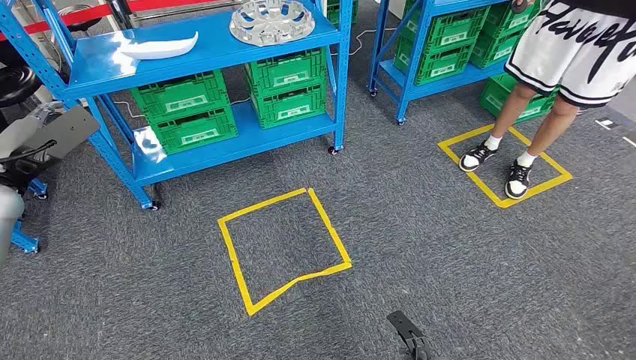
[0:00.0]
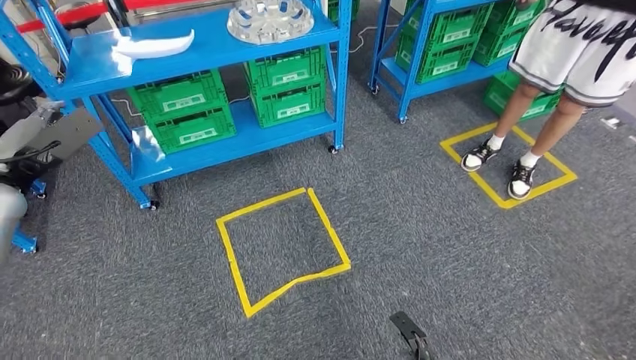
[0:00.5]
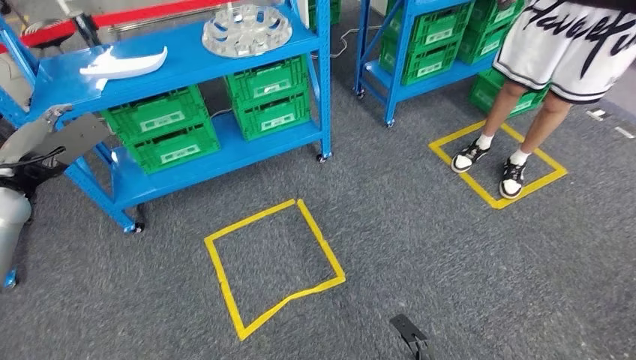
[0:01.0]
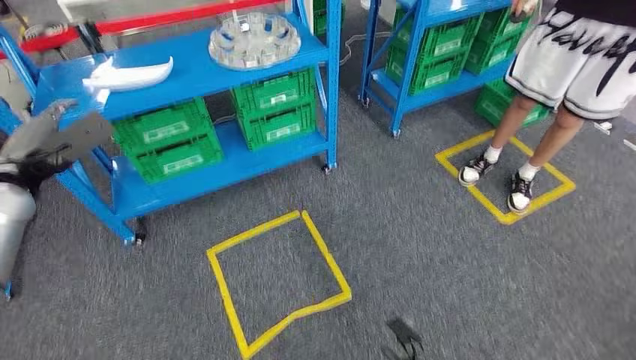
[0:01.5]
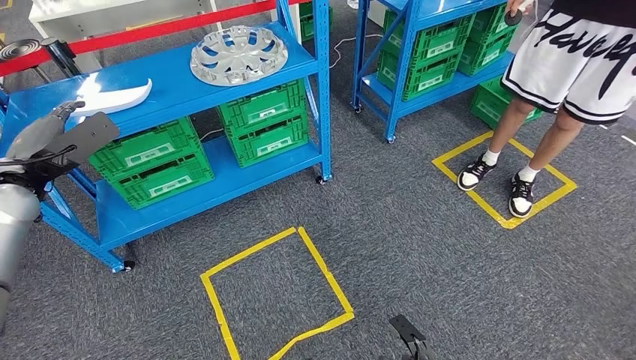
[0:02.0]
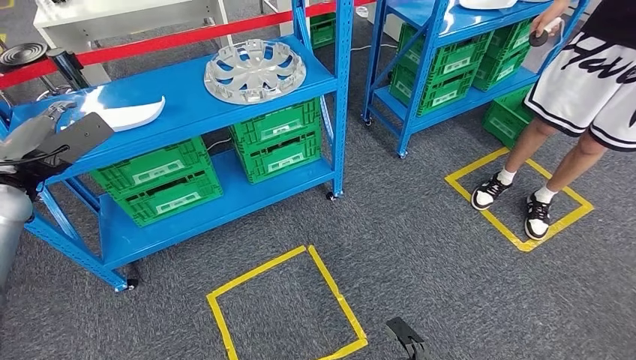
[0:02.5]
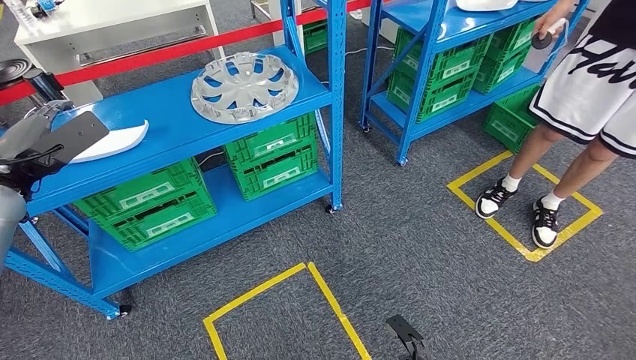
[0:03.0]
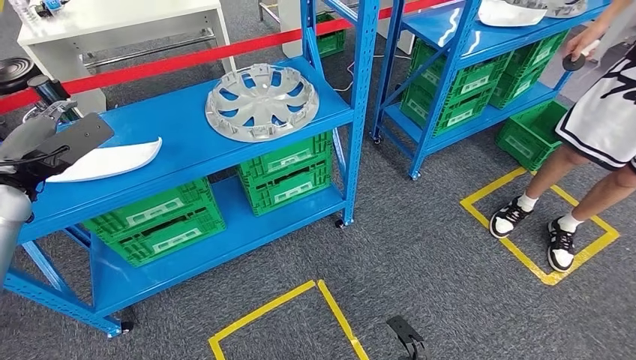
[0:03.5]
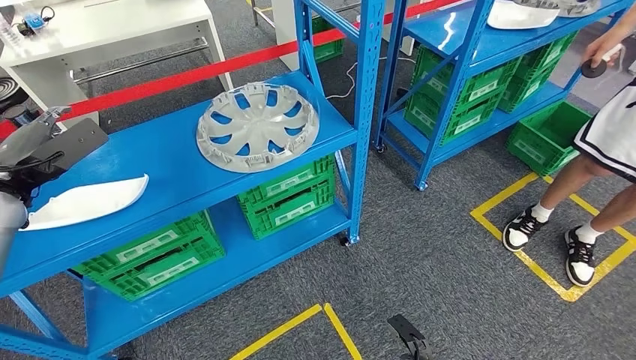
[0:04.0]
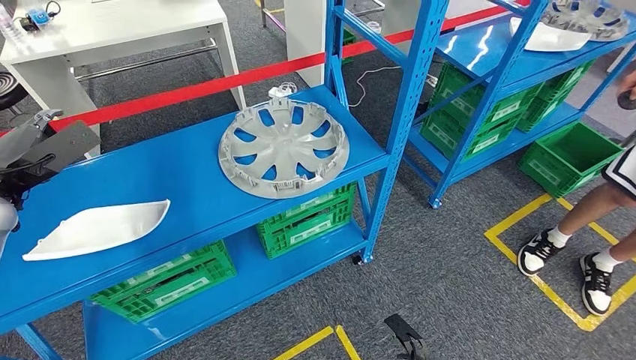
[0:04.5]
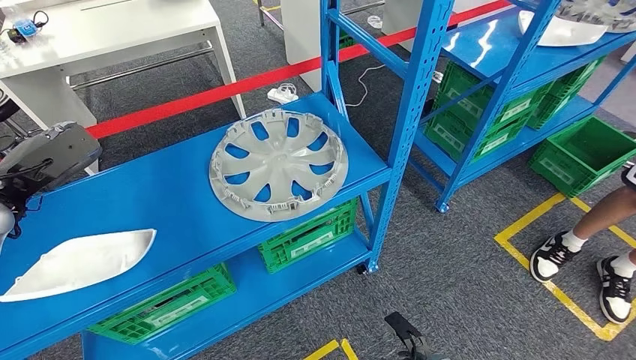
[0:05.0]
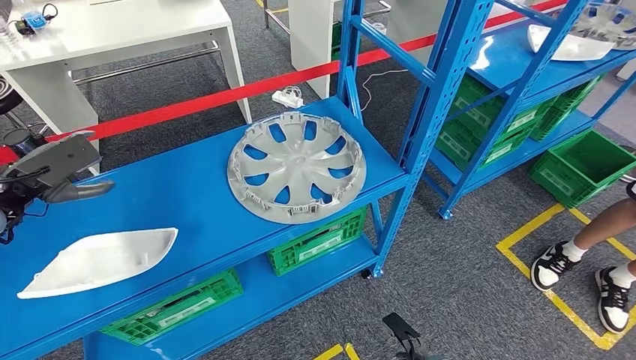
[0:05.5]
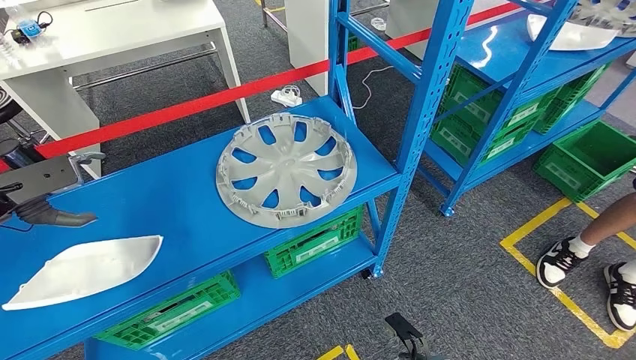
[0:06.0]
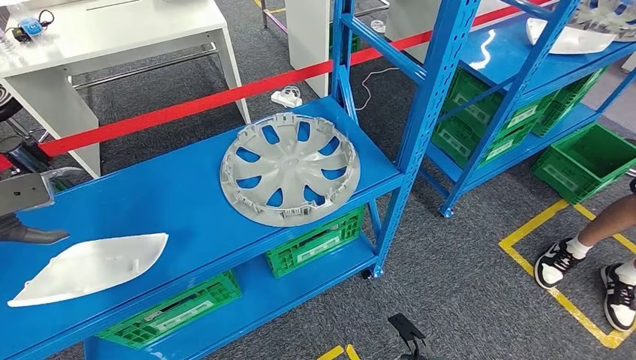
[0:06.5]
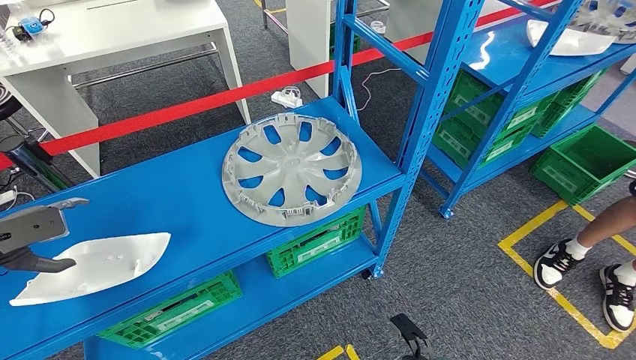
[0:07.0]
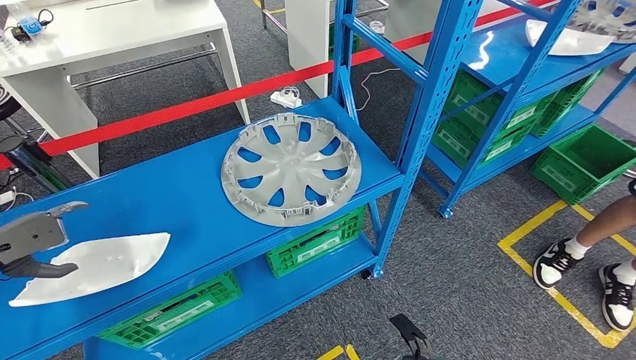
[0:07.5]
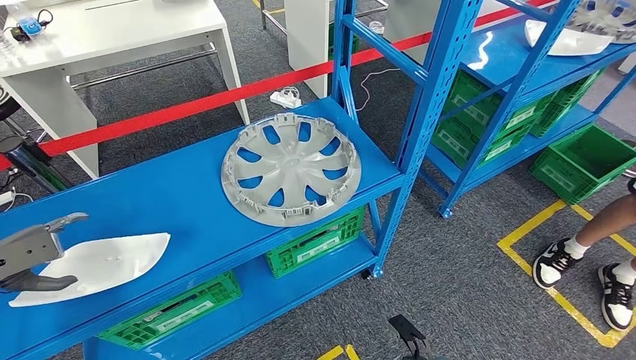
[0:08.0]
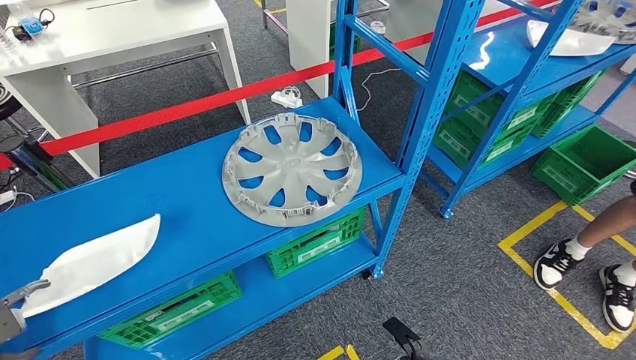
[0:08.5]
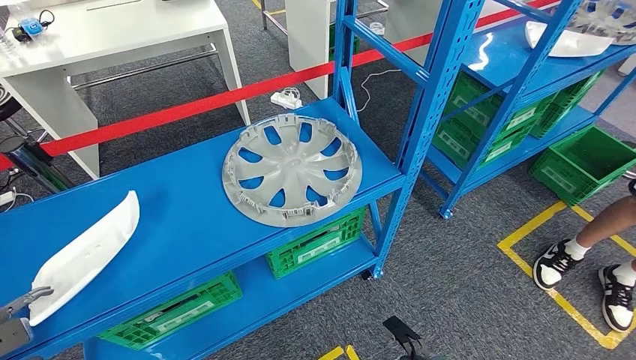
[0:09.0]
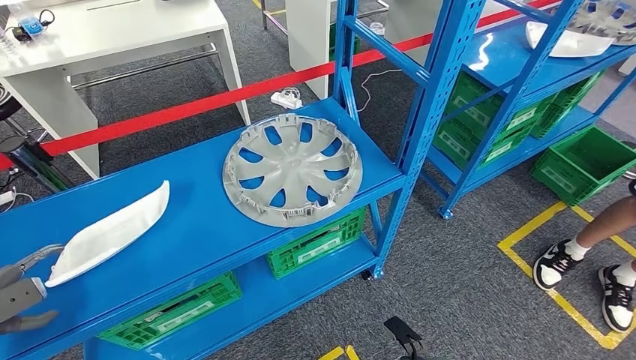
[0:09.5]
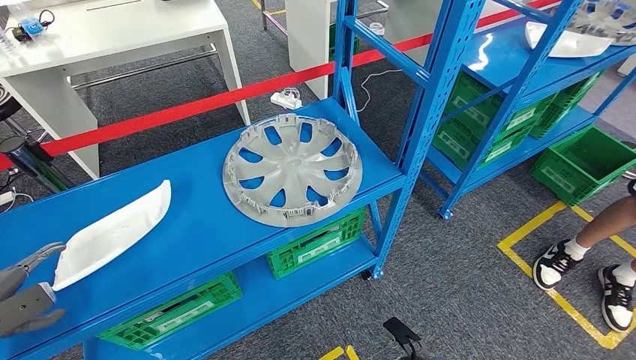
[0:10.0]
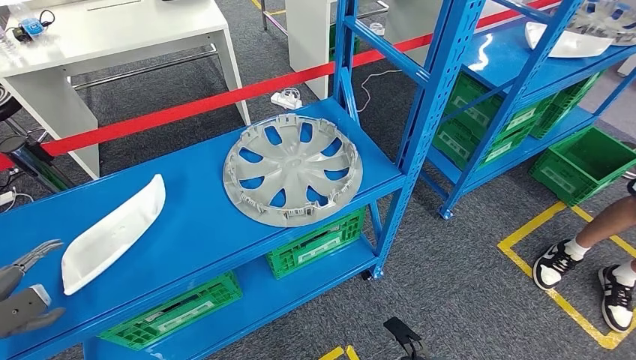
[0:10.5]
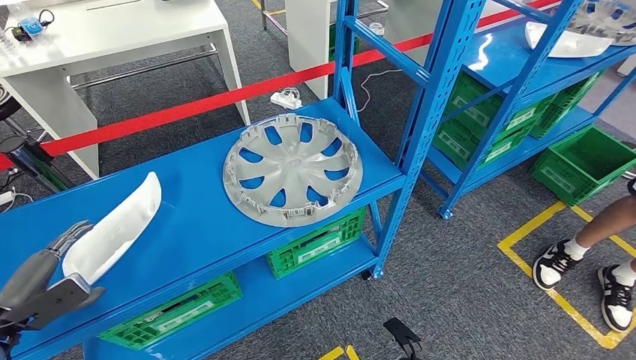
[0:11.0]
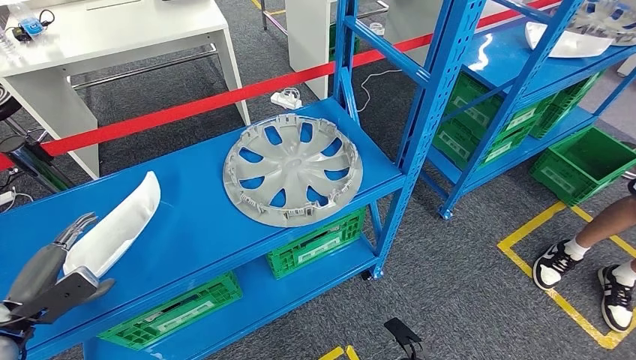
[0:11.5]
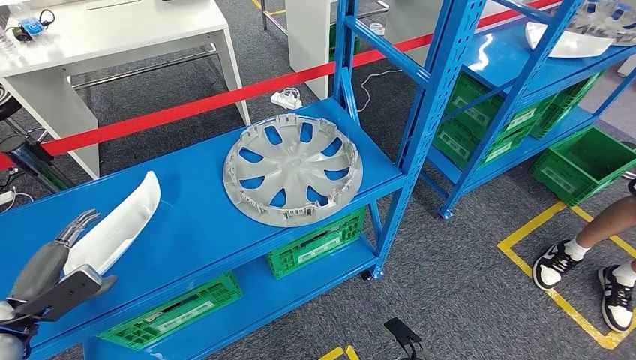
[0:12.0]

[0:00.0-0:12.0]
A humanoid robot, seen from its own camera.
0:06.0 to 0:08.0: The left hand shifts roughly 10 cm to the left and downward.
0:08.0 to 0:10.0: The left hand is displaced backward and downward by approximately 10 cm.
0:10.0 to 0:12.0: The left hand shifts roughly 10 cm to the right.

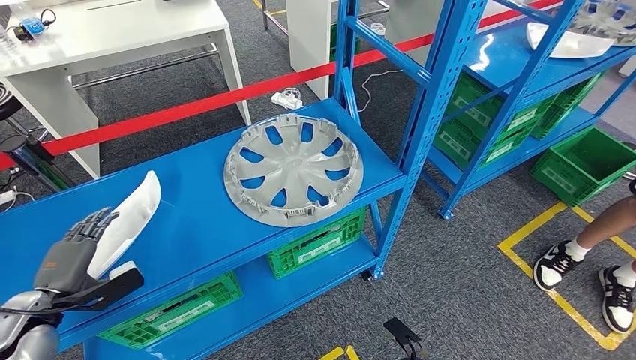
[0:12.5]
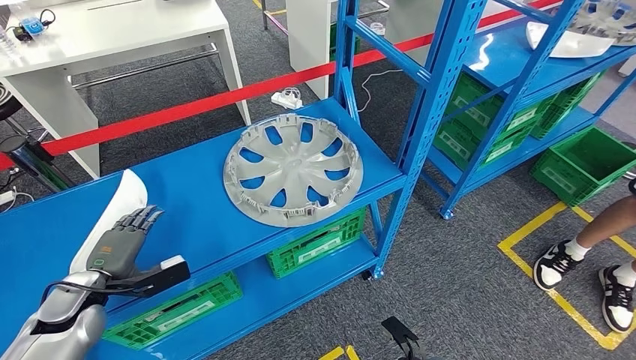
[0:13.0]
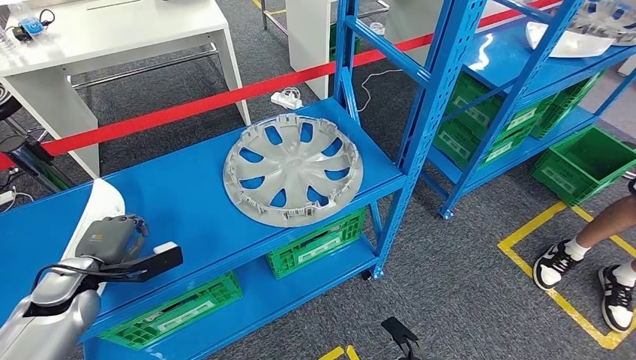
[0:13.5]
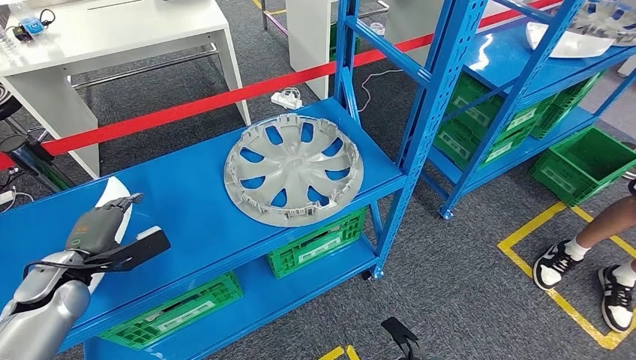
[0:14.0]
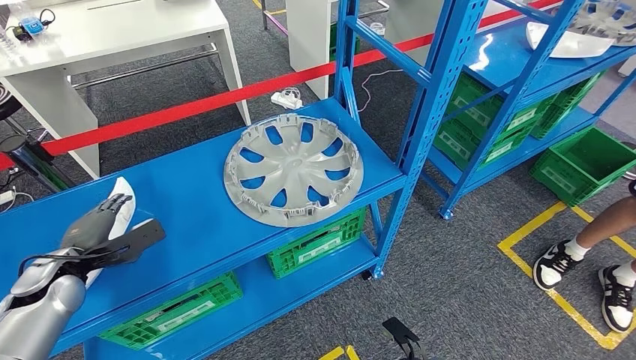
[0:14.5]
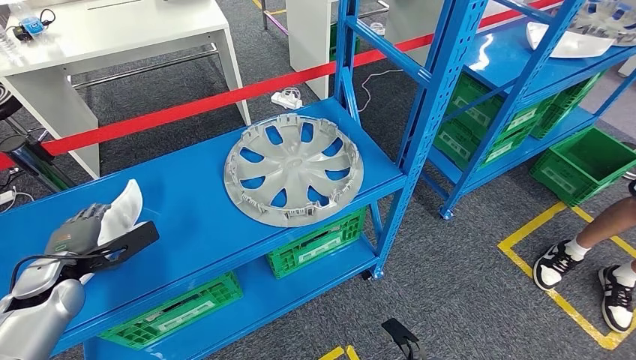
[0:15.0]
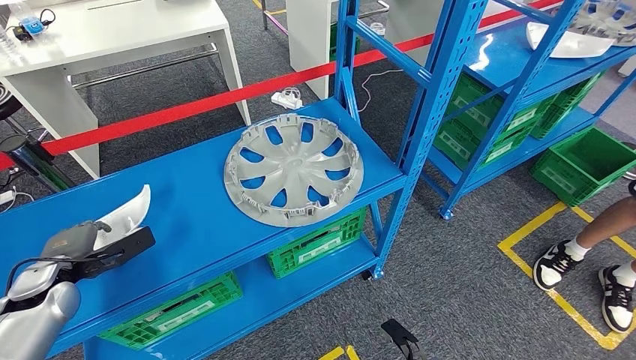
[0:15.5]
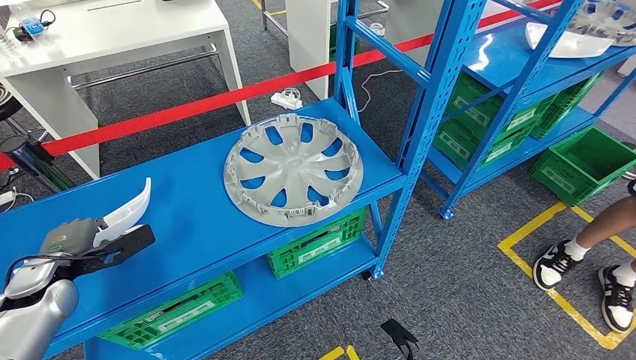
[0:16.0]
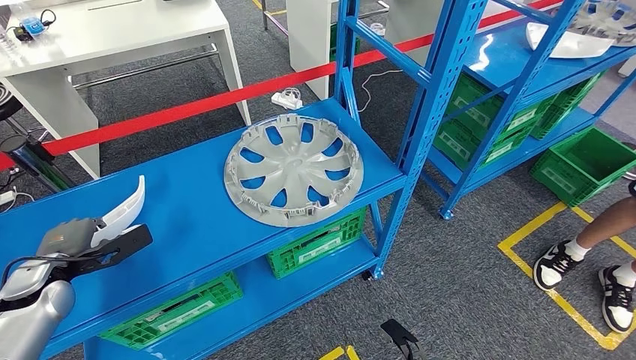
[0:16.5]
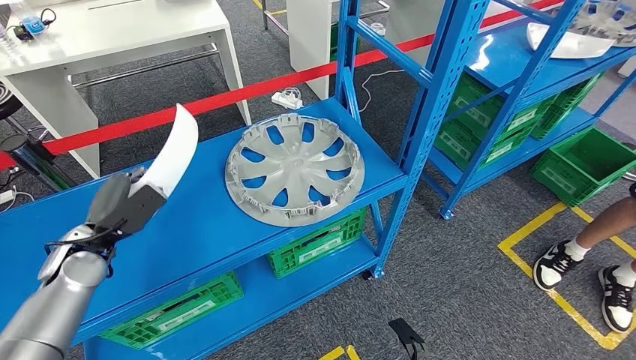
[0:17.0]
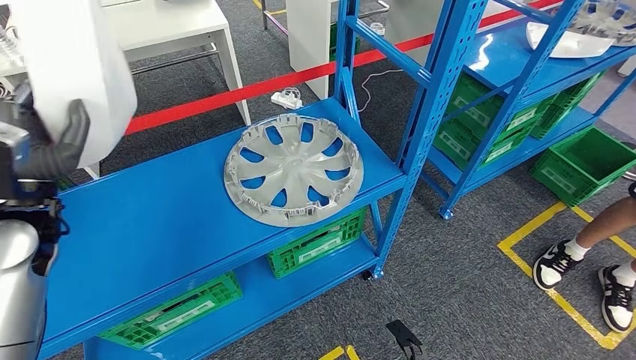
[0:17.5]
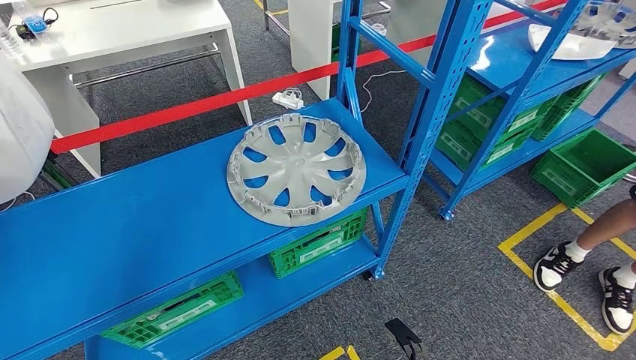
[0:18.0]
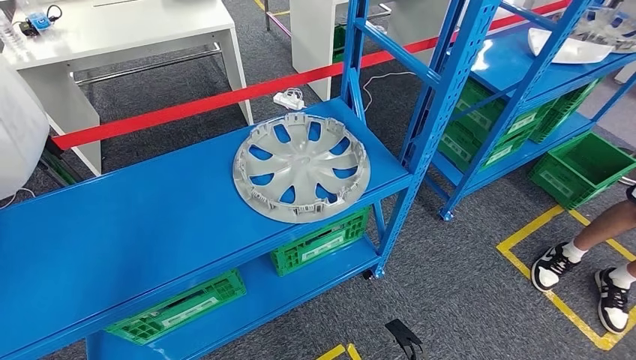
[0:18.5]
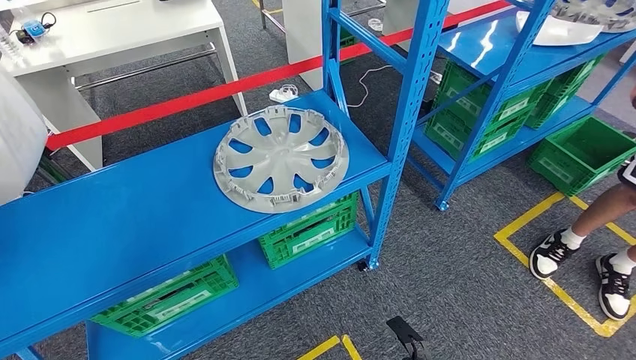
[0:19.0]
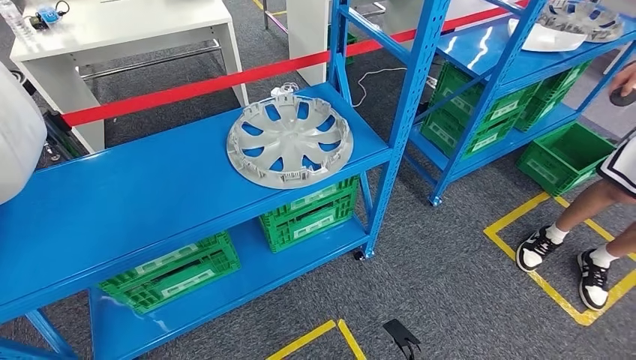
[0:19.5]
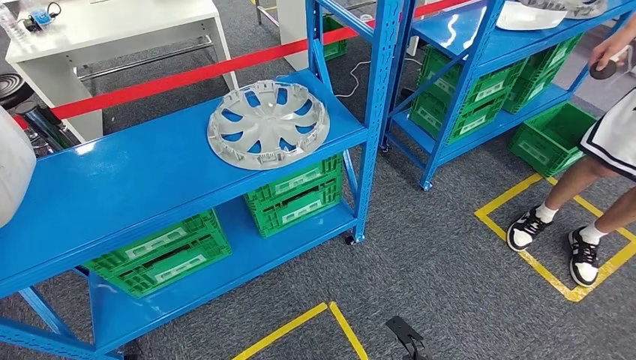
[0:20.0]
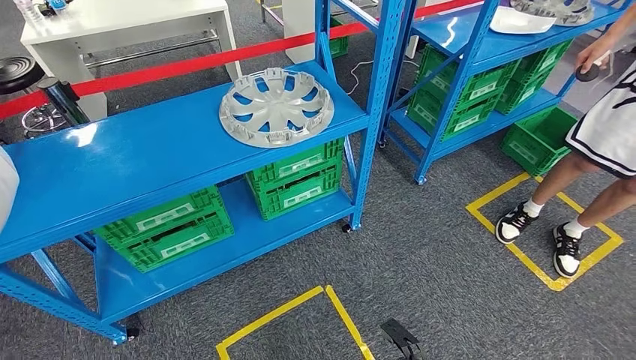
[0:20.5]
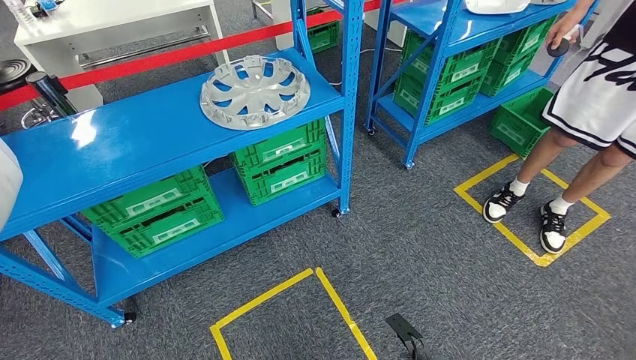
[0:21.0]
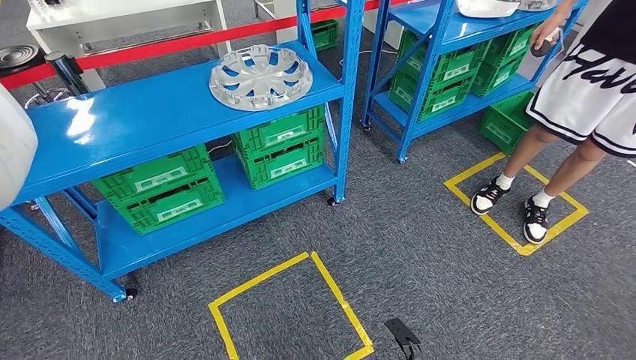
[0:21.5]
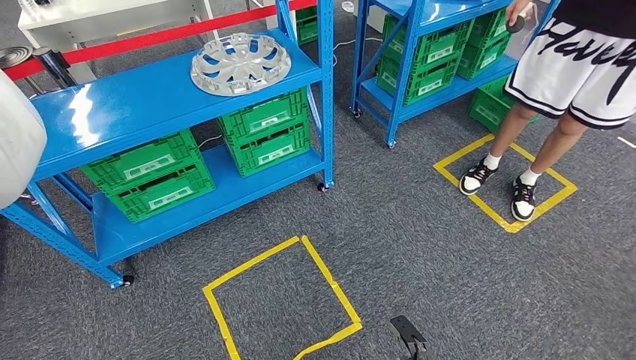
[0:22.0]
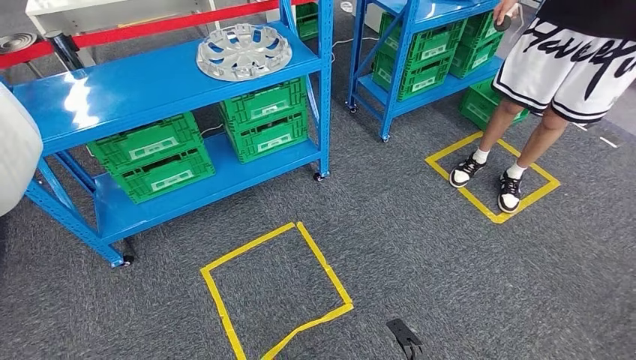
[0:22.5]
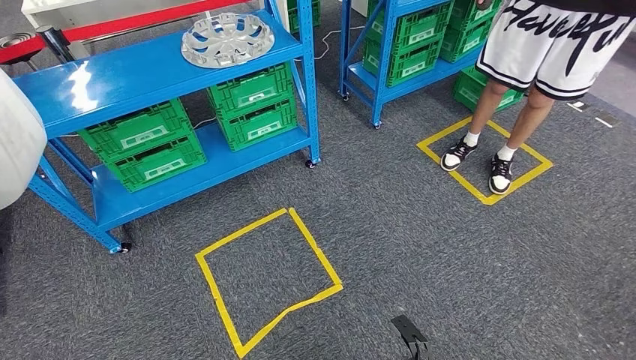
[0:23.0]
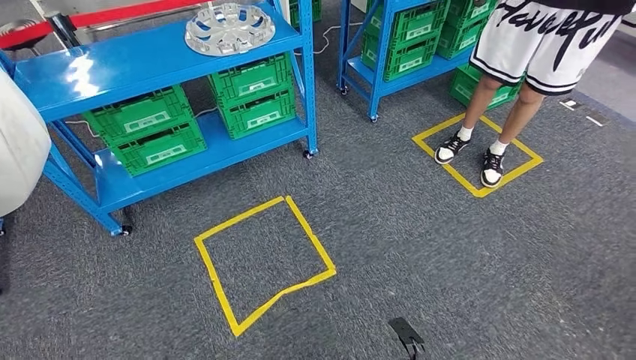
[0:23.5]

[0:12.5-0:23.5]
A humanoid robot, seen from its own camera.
Step, 0:12.5 to 0:17.0: Pick up the small component from the shelf.
0:12.5 to 0:14.5: The left hand is displaced to the right by some 5 cm.
0:14.5 to 0:16.0: There are only small adjustments of the hands.
0:16.0 to 0:18.0: The left hand heads upward, covering roughly 15 cm.
